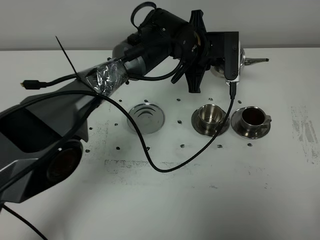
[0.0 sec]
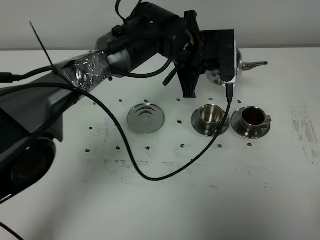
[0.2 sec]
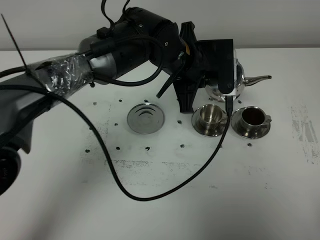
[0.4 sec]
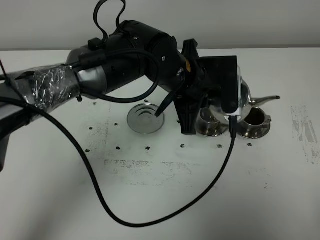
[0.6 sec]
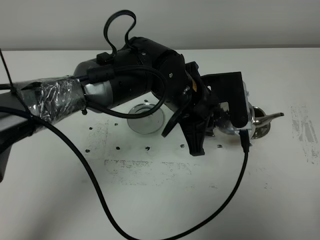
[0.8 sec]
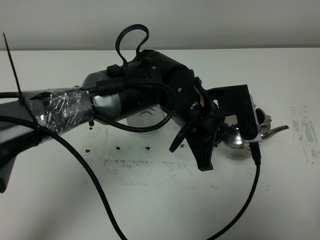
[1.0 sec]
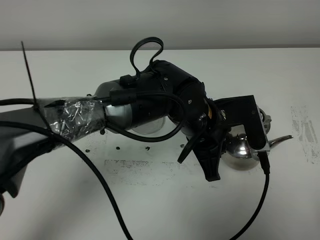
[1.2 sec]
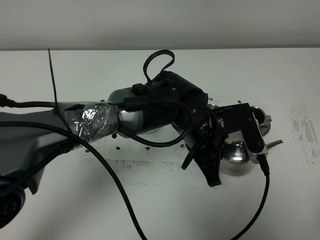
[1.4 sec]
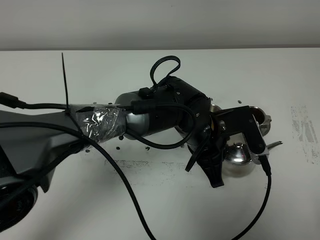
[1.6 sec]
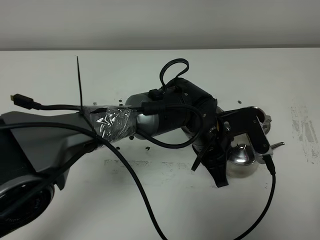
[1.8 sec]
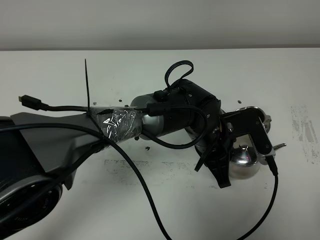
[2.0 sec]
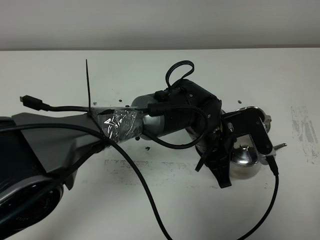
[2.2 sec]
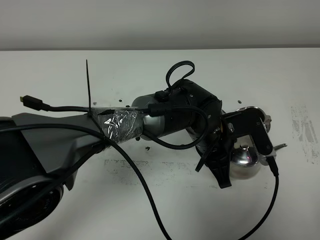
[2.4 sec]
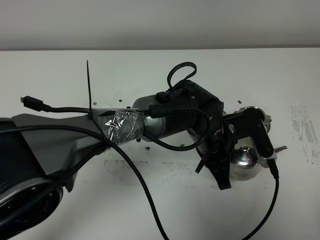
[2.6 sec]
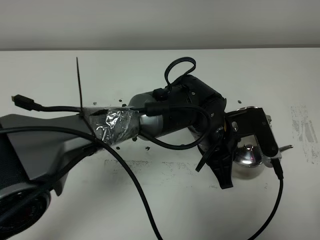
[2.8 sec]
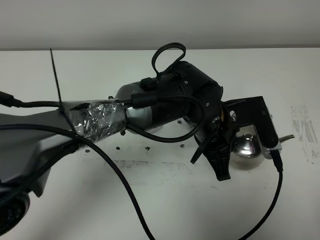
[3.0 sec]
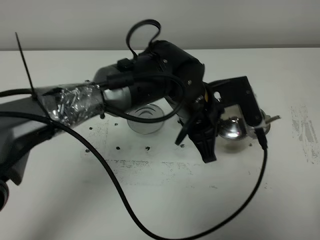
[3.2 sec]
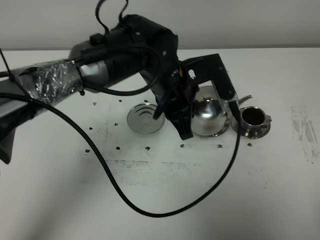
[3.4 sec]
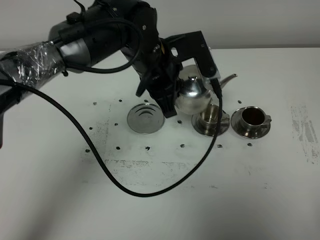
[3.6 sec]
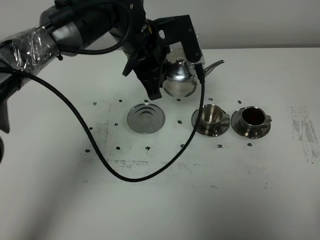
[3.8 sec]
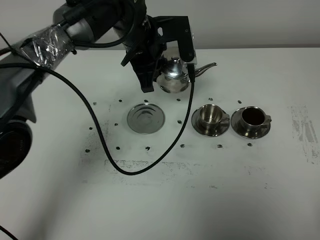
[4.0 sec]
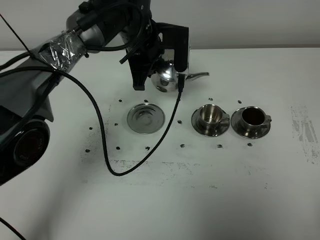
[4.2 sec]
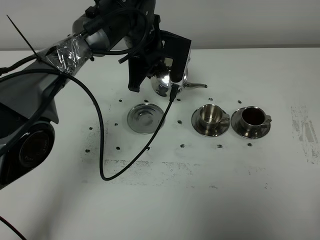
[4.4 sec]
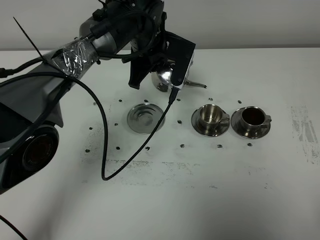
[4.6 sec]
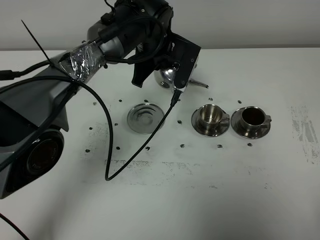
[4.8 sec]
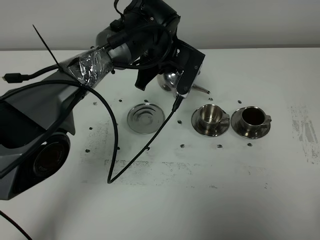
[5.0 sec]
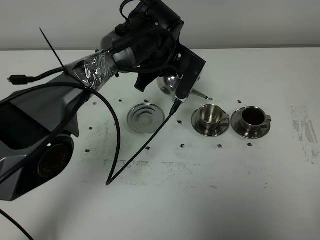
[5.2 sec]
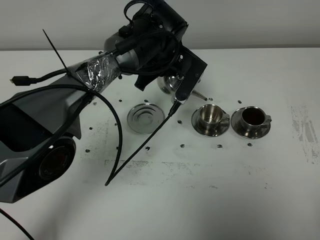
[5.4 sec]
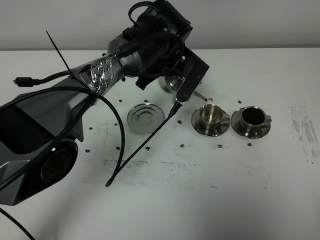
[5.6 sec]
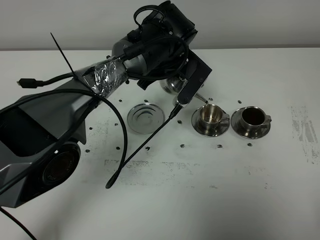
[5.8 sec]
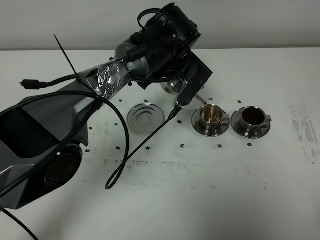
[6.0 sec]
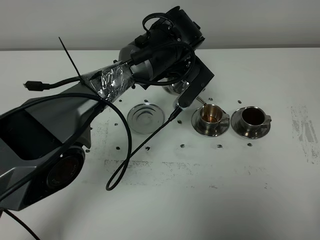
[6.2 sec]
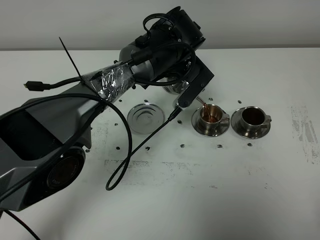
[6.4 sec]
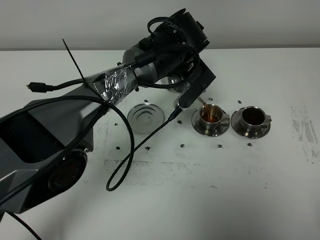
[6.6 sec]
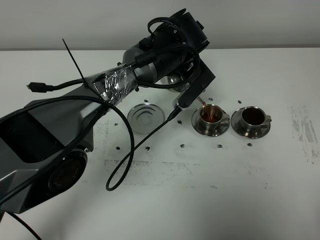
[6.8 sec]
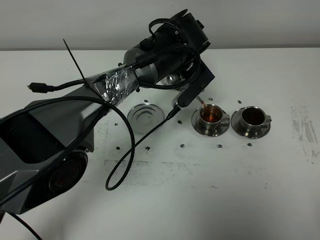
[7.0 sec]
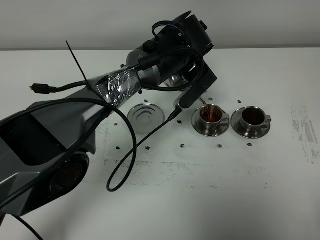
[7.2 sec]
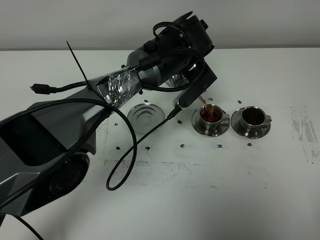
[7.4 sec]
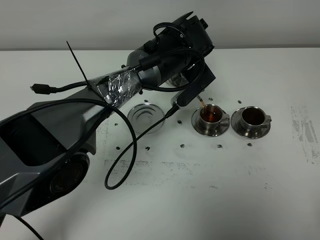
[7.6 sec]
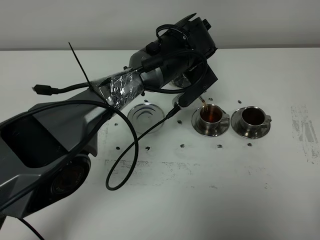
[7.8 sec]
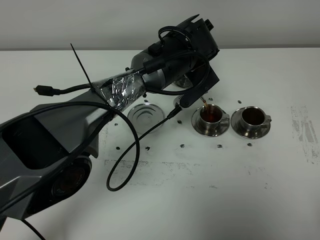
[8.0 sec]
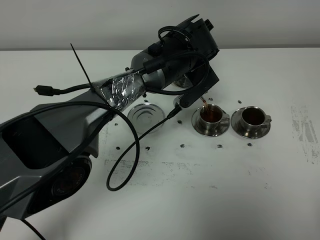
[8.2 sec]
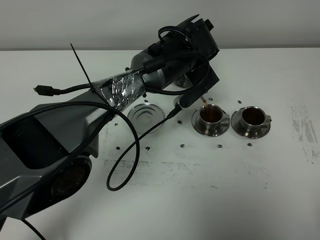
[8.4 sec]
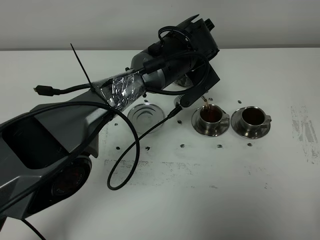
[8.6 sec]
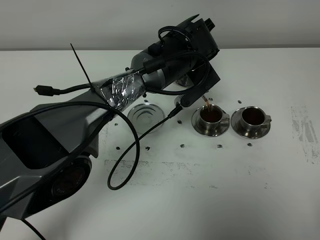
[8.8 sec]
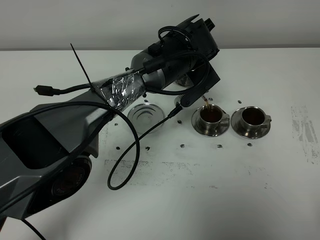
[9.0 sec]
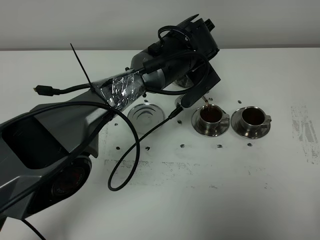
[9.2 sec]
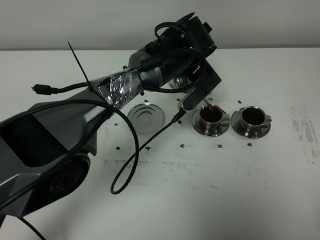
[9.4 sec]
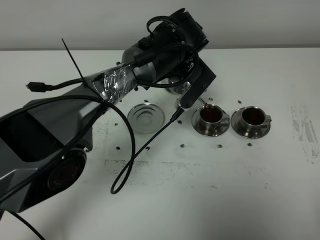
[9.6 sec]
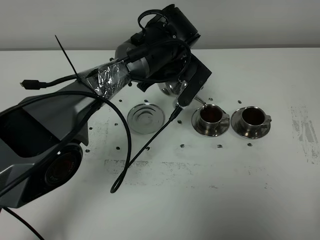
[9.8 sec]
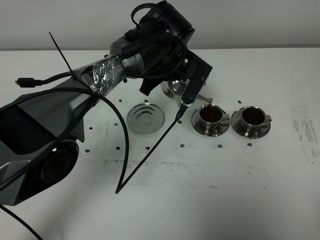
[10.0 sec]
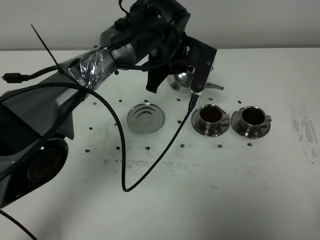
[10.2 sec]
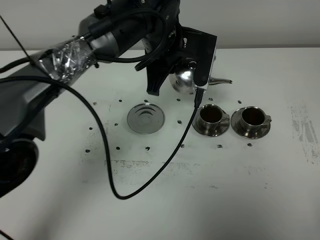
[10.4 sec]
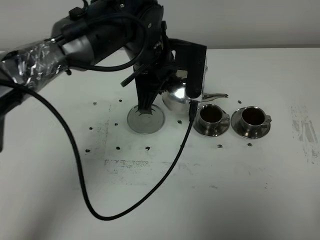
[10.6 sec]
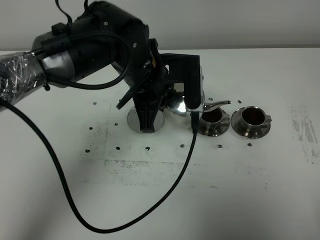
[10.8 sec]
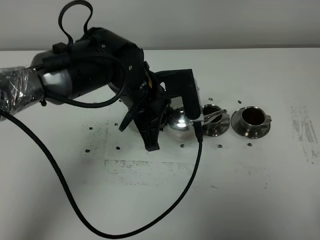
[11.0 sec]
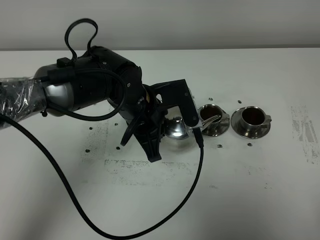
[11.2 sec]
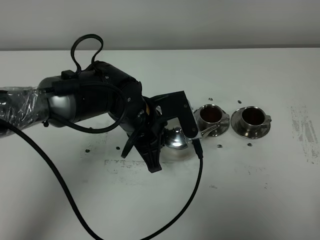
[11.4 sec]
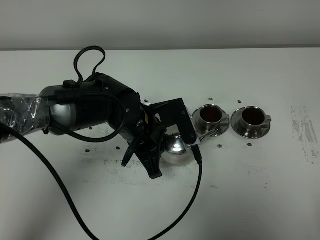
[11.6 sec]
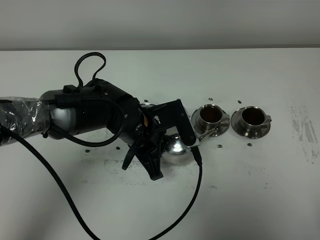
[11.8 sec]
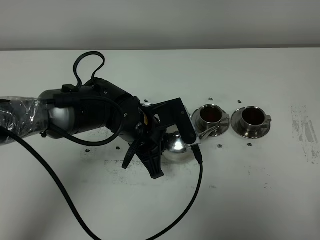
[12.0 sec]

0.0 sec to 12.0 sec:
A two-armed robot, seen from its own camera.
Task of the whole recording: grasp the stainless steel teapot and pour the tea into the two stainless steel teacups one by one, put the stainless steel teapot back in its original place.
Step, 0.0 sec to 10.0 sec: Pour tea into the teacup with the left gripper.
0.0 sec to 1.6 sec: The left gripper shifts roughly 15 cm backward.
1.6 sec to 3.0 sec: There are only small adjustments of the grippers.
3.0 sec to 4.4 sec: The left gripper shifts roughly 20 cm forward and to the left.
4.4 sec to 6.0 sec: The left gripper moves to the right, approximately 5 cm.
6.0 sec to 7.6 sec: The grippers move only a little.
7.6 sec to 9.0 sec: The two grippers keep their place.
9.0 sec to 10.4 sec: The left gripper shifts by about 5 cm.
10.4 sec to 12.0 sec: The left gripper travels downward and backward by about 15 cm.

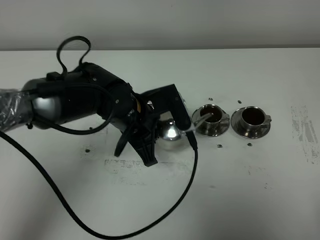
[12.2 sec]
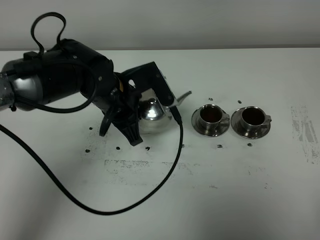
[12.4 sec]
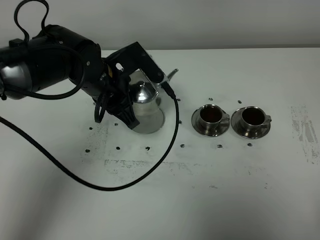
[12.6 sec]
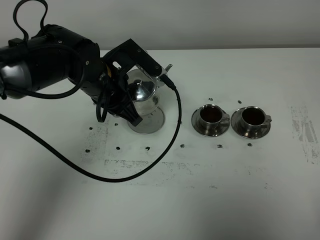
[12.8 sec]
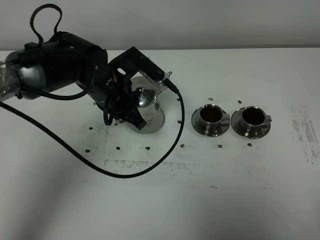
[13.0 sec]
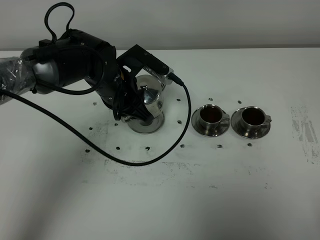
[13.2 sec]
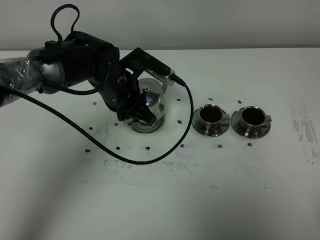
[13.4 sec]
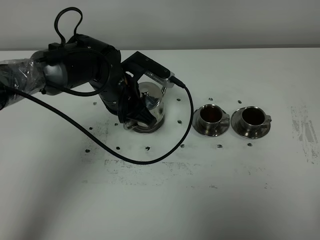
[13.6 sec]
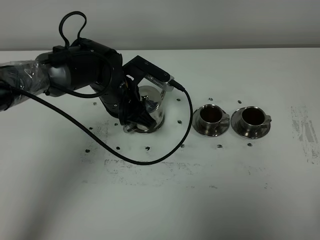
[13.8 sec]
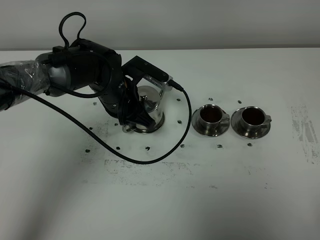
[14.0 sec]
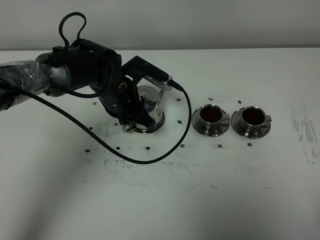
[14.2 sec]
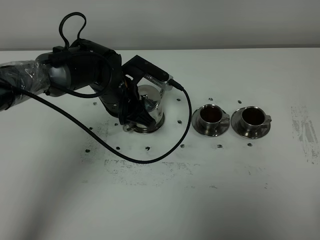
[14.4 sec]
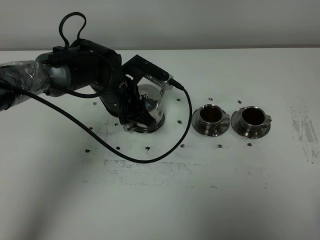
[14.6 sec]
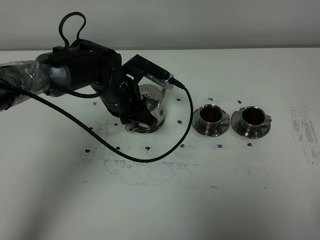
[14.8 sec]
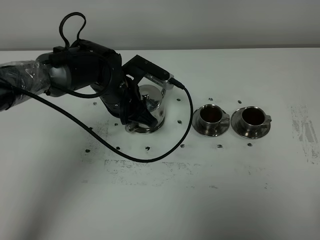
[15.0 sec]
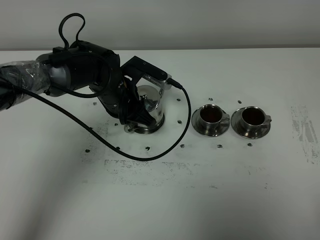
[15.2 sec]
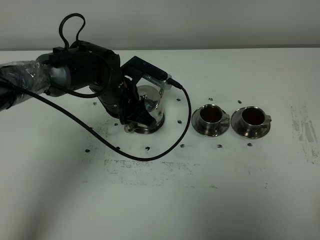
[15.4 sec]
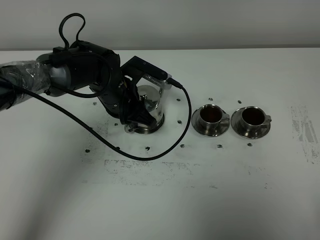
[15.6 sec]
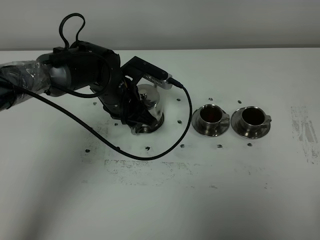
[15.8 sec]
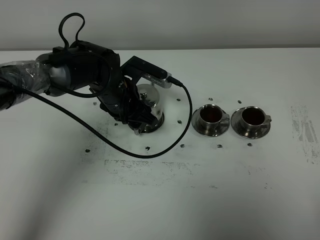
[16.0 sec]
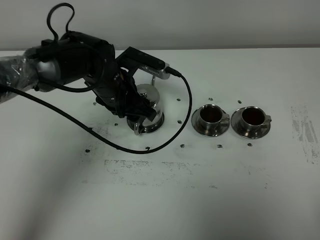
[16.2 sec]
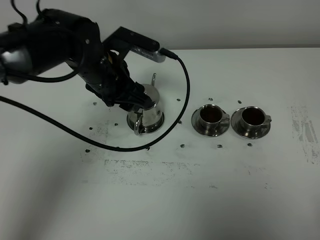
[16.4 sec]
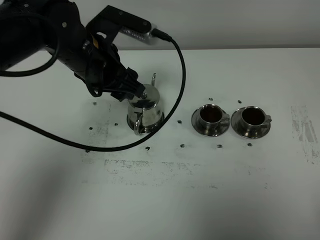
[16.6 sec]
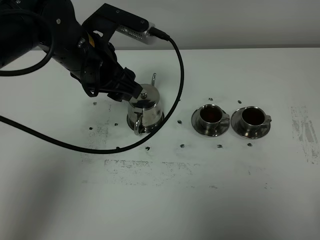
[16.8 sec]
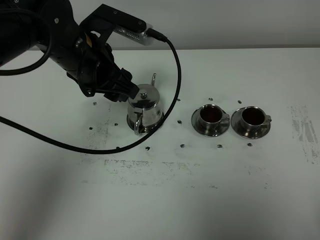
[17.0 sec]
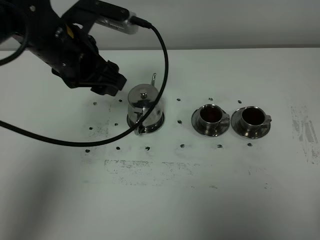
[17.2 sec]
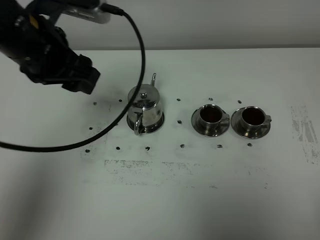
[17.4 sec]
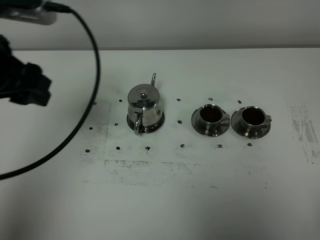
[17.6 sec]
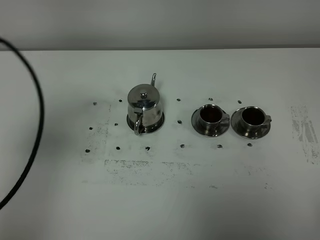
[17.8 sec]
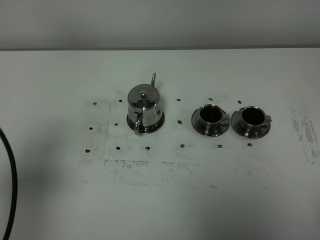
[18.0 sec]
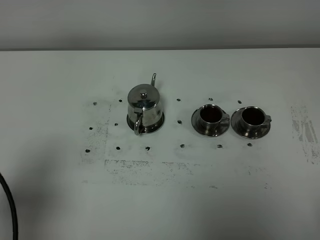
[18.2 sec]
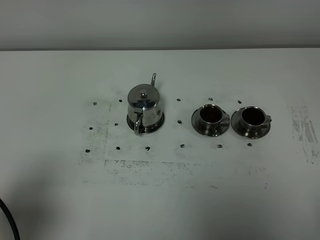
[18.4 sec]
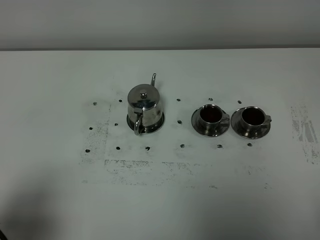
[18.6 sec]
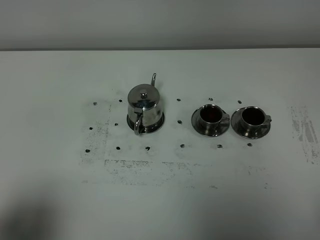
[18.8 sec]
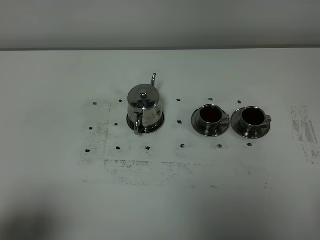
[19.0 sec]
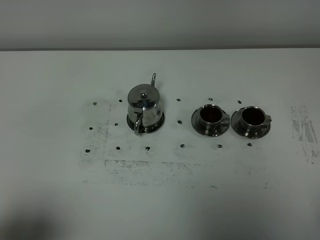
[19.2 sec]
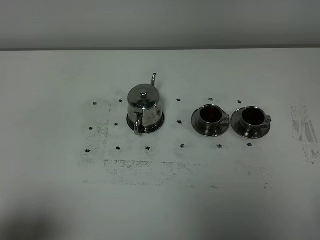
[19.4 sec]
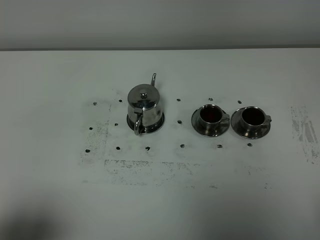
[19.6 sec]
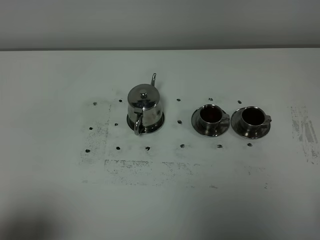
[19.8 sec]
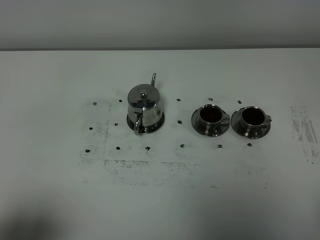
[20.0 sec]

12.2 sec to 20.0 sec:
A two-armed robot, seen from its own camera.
Task of the whole recording: grasp the stainless steel teapot and pour the tea into the two stainless steel teacups one by one, put the stainless steel teapot back in its original place.
12.2 sec to 13.8 sec: The left gripper goes approximately 5 cm forward.
13.8 sec to 15.4 sec: Both grippers stay about where they are.
15.4 sec to 16.8 sec: The left gripper goes approximately 15 cm upward, and opens up.
16.8 sec to 18.4 sec: The left gripper travels backward and to the left by roughly 35 cm.
18.4 sec to 20.0 sec: The left gripper travels backward by some 5 cm.
